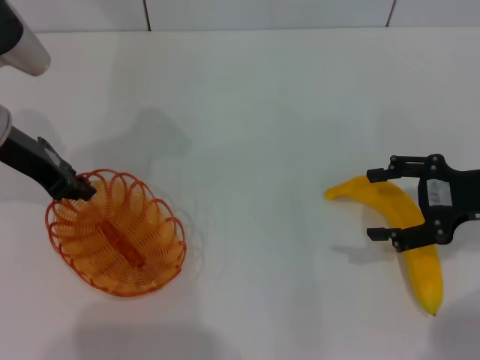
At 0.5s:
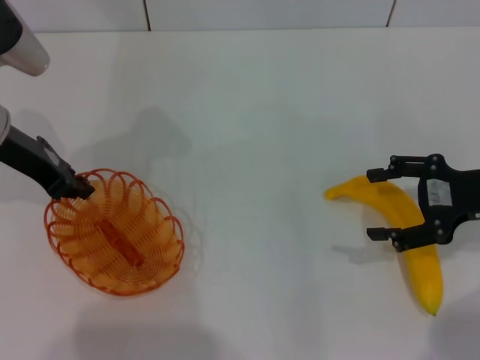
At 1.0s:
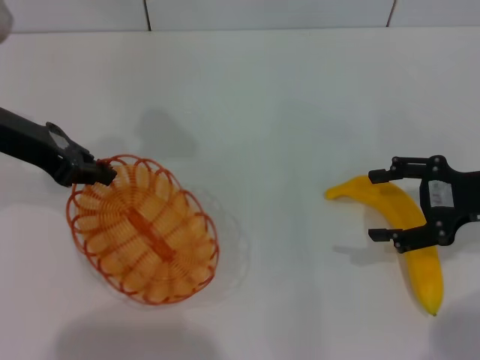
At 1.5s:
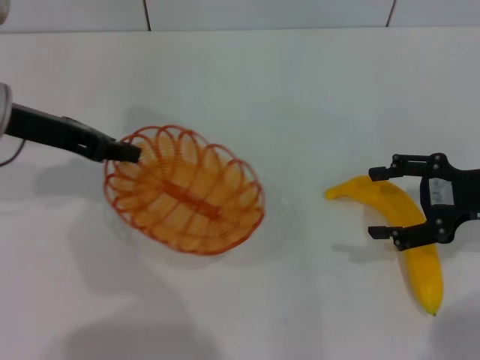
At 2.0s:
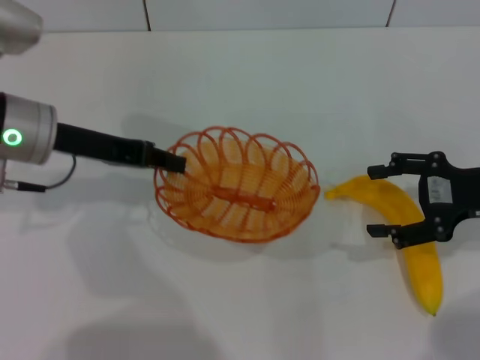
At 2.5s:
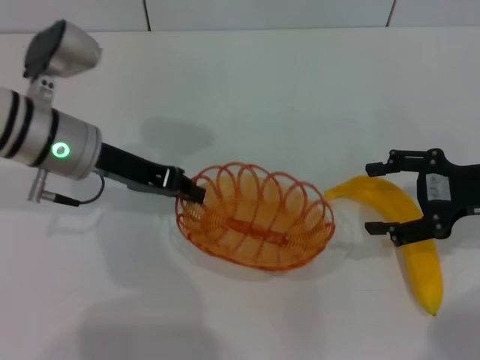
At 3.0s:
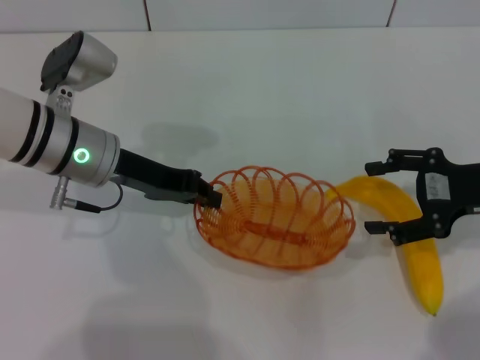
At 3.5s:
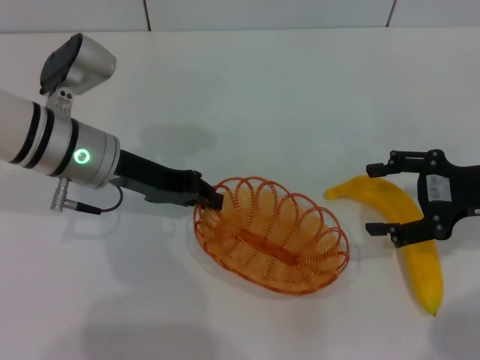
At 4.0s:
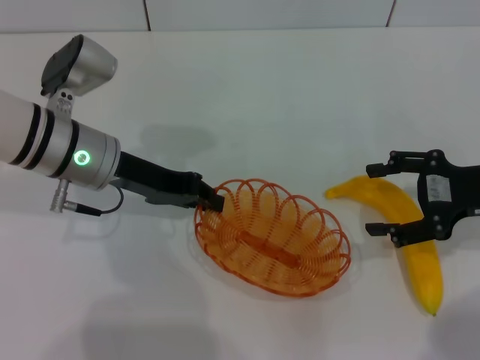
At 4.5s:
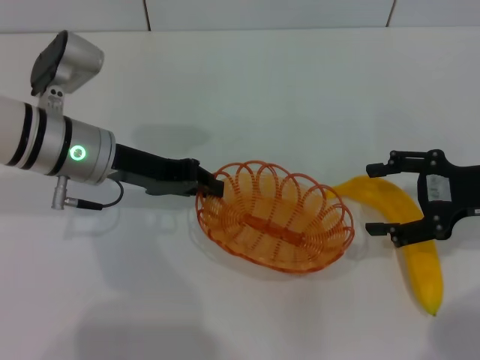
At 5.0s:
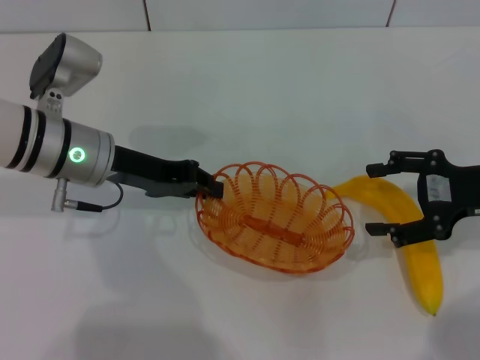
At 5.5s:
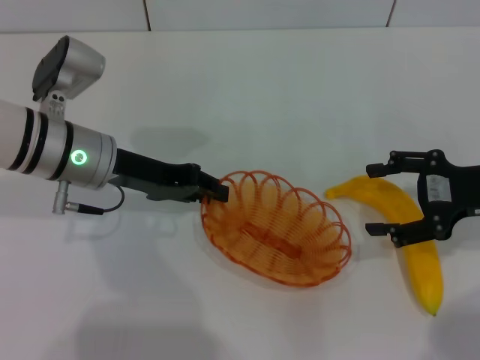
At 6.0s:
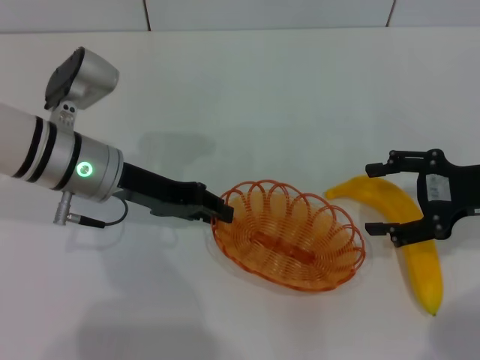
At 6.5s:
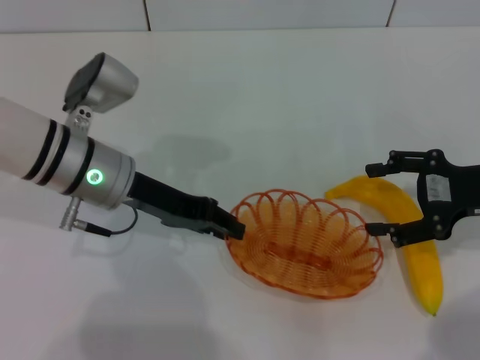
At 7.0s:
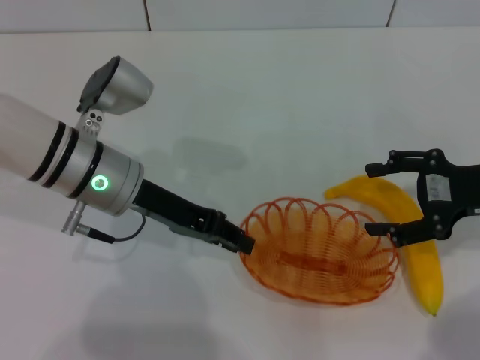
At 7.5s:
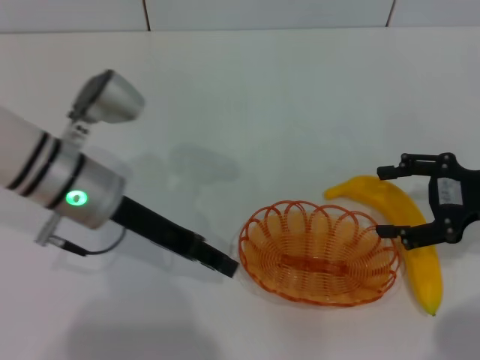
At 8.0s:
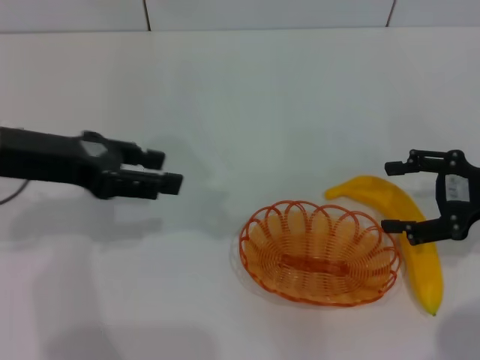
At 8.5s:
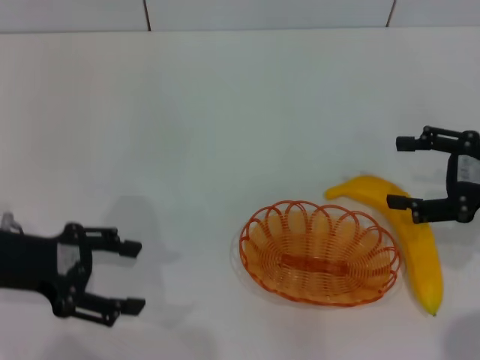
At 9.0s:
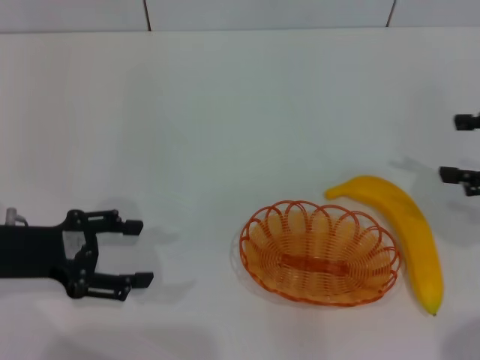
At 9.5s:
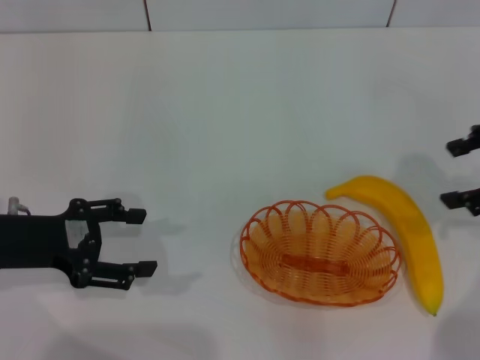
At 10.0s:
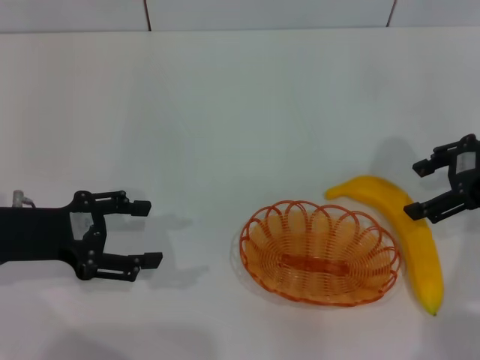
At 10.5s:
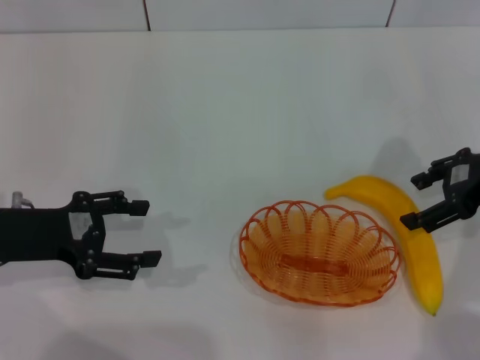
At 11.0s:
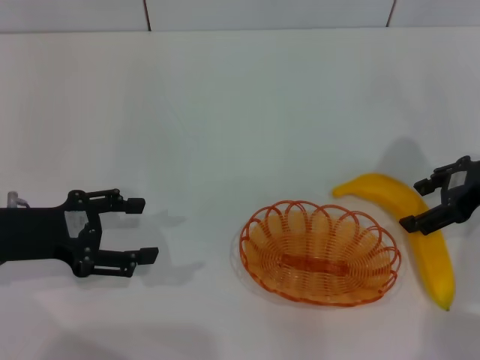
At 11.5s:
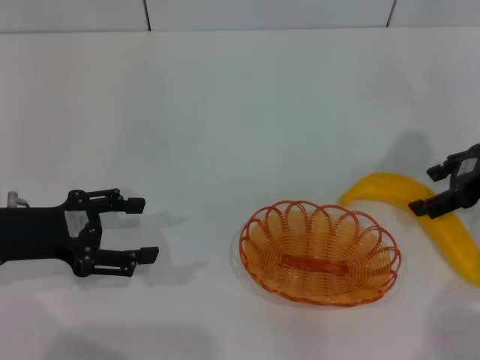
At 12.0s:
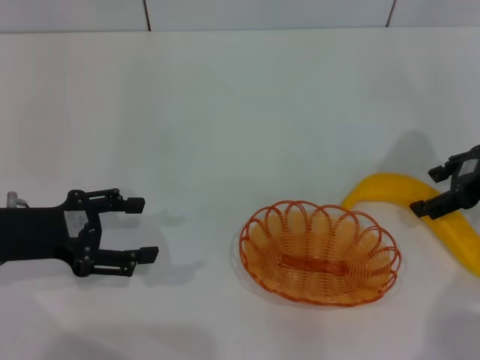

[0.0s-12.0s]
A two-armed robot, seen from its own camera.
Step, 1.5s to 7.0s: Place the basket in the center of view with the left gripper.
2.0s to 4.0s: The left gripper shifts by some 5 cm.
4.0s to 6.0s: The grippers make only small movements.
6.0s to 8.0s: The left gripper moves upward and to the left, about 10 cm, and opens its fingers.
8.0s to 10.0s: The left gripper shifts about 10 cm downward, and opens up; the right gripper goes about 5 cm upward.
10.0s to 12.0s: The grippers make only small movements.

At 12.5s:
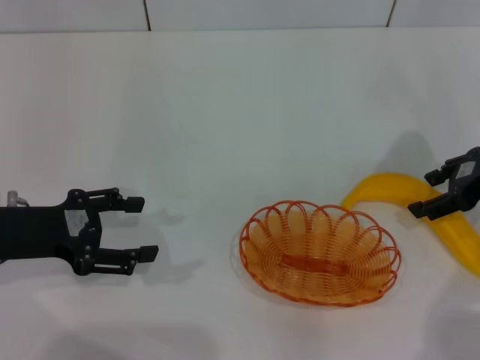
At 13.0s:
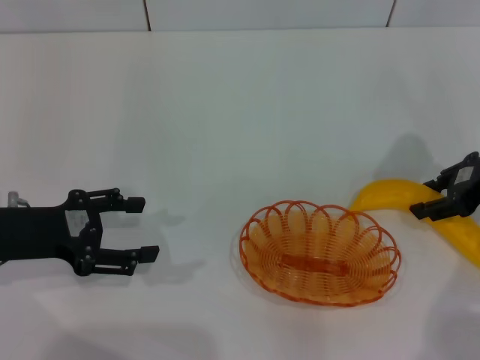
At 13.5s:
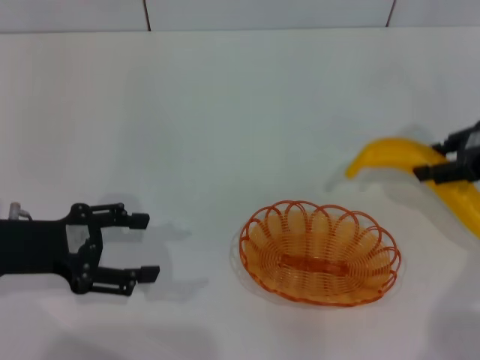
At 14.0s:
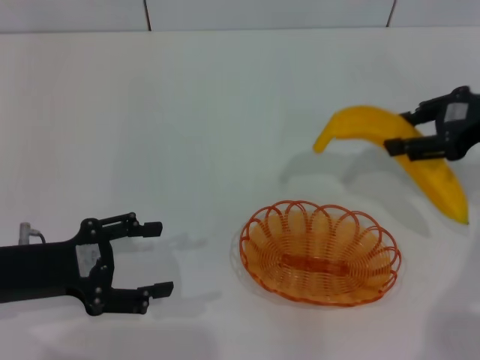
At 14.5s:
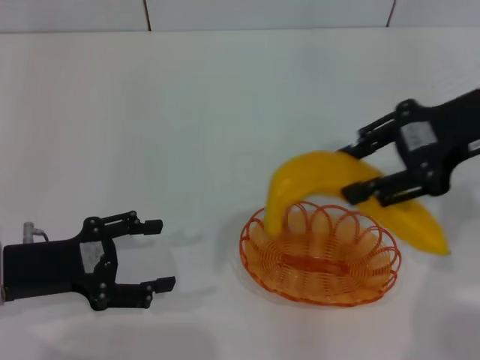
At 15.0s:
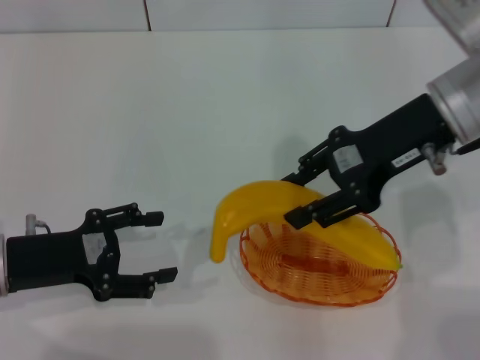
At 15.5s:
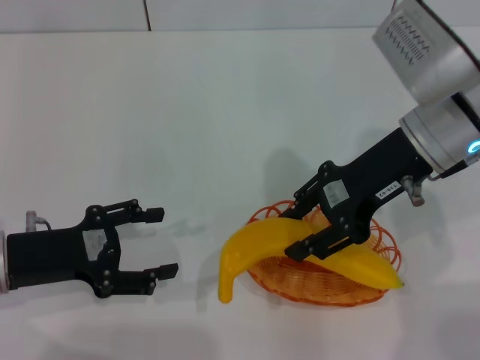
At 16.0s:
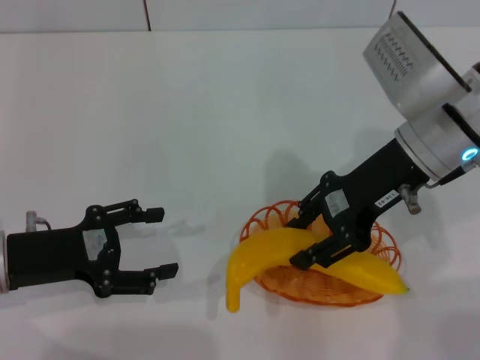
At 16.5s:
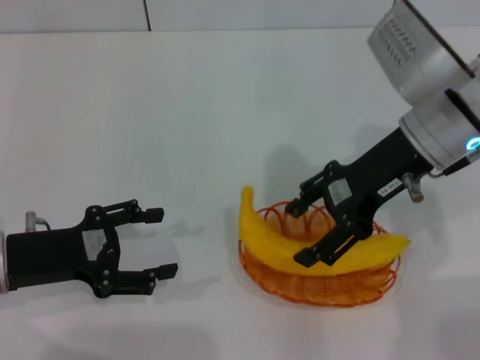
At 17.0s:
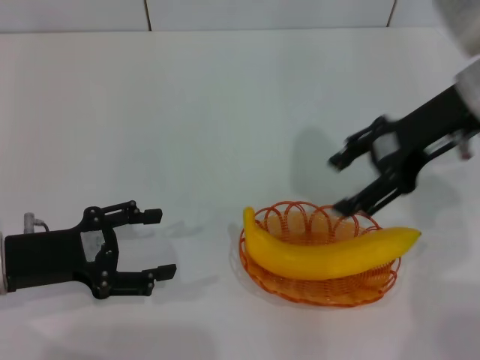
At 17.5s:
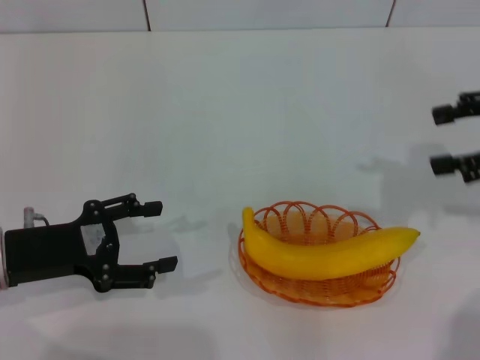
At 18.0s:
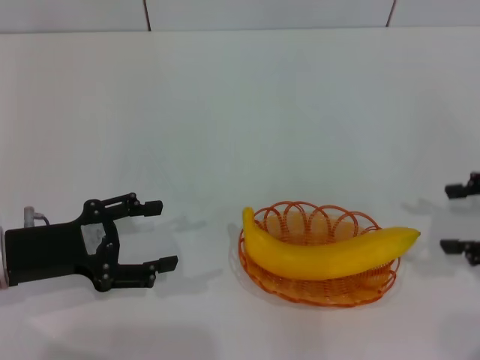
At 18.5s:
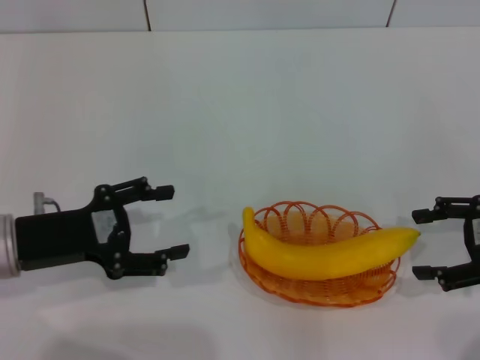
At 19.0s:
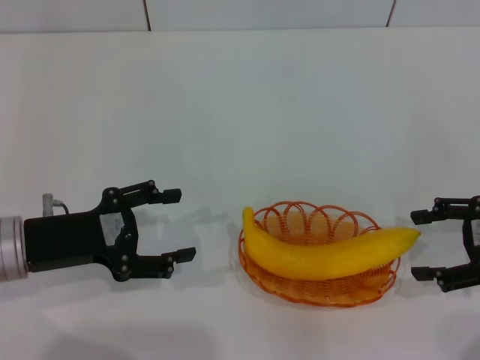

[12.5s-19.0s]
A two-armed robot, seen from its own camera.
Step, 14.0s to 17.0s: Place the banana into the basket with the right gripper.
12.5s to 14.5s: The right gripper shifts about 10 cm upward and to the left, and closes.
14.5s to 17.0s: The right gripper opens its fingers.
17.0s to 19.0s: The right gripper moves to the right, backward and downward, some 20 cm.
